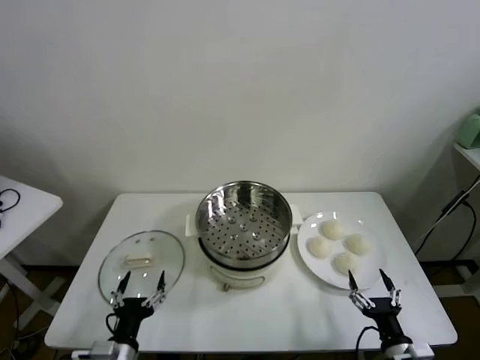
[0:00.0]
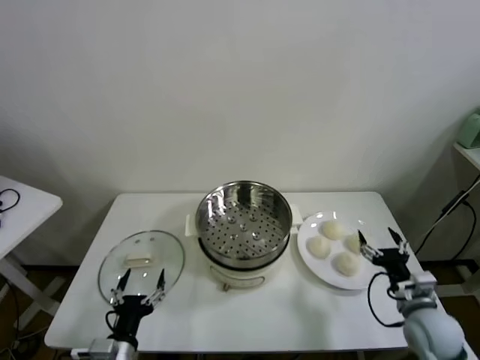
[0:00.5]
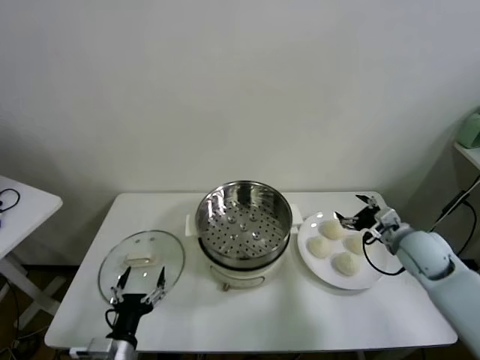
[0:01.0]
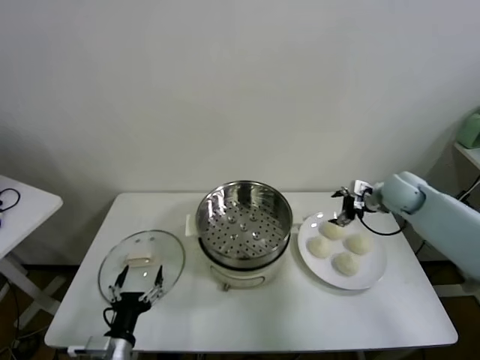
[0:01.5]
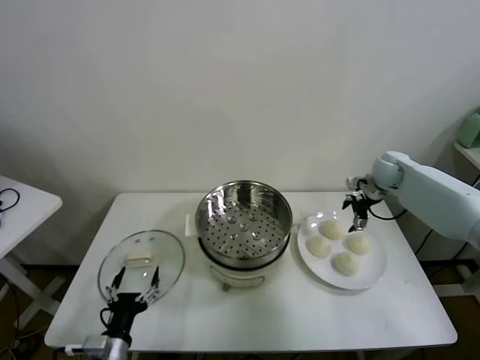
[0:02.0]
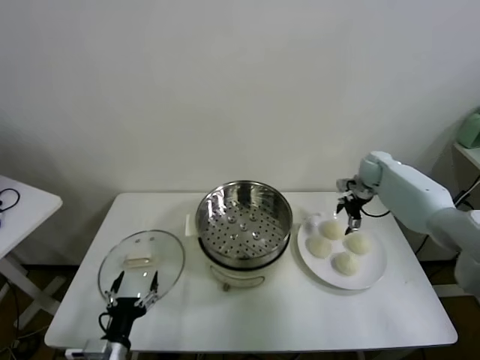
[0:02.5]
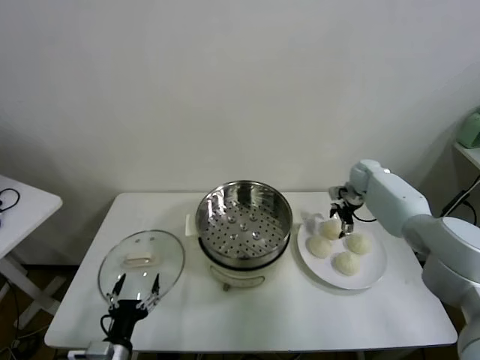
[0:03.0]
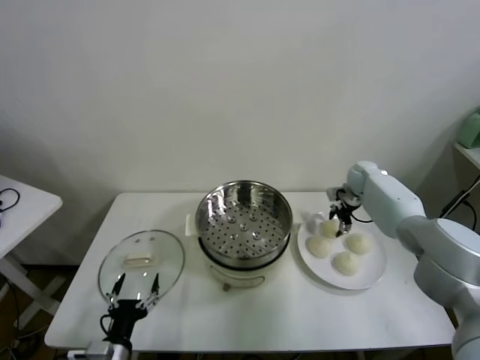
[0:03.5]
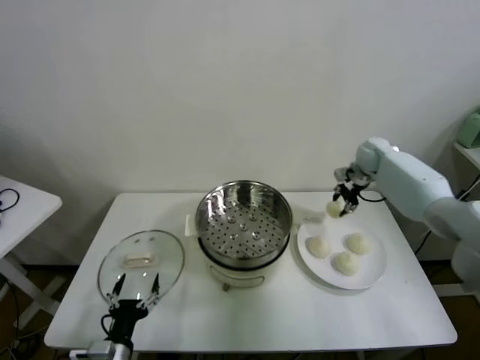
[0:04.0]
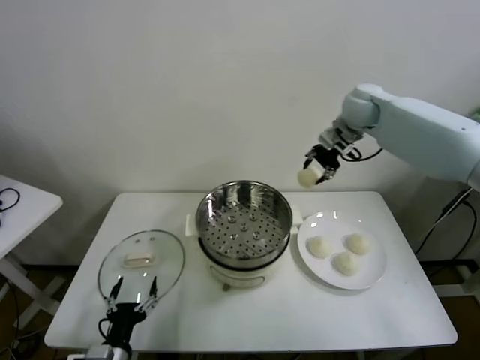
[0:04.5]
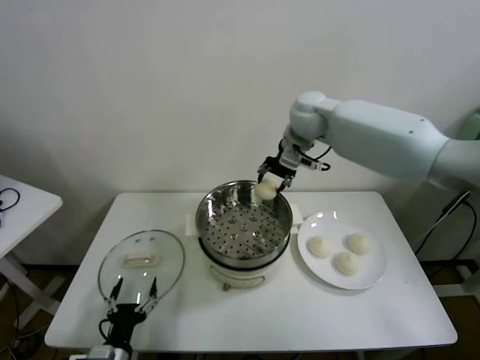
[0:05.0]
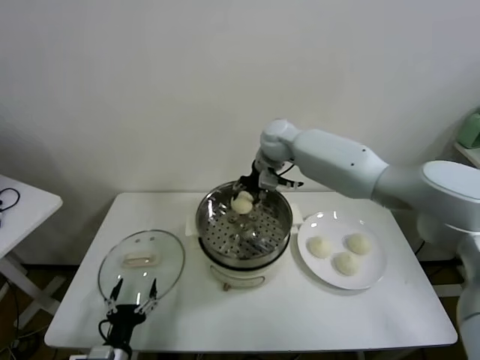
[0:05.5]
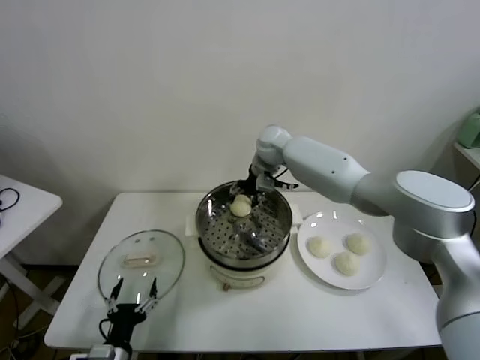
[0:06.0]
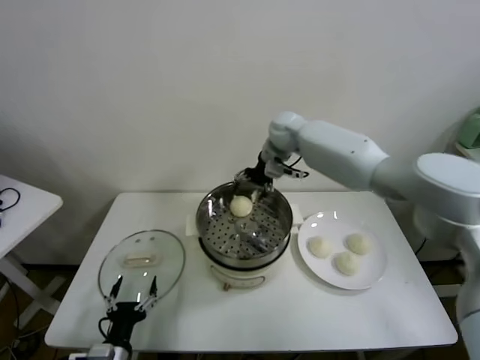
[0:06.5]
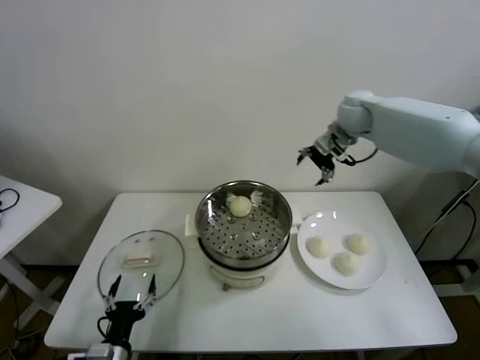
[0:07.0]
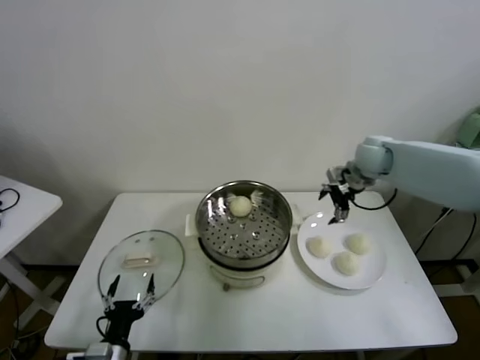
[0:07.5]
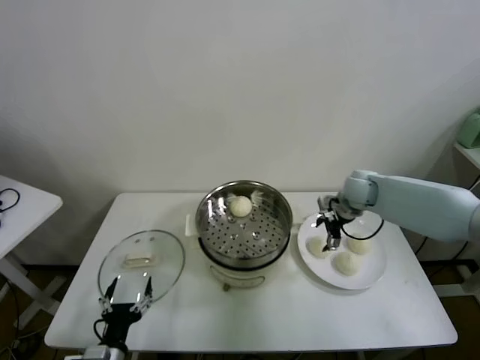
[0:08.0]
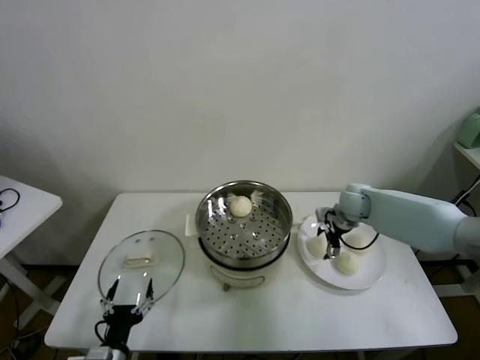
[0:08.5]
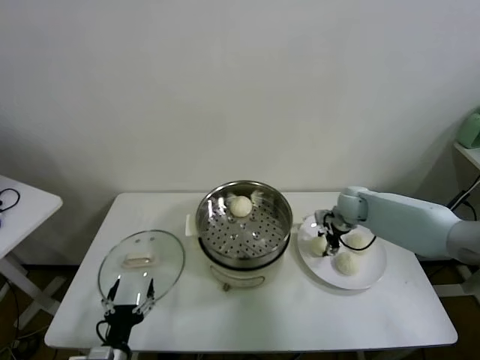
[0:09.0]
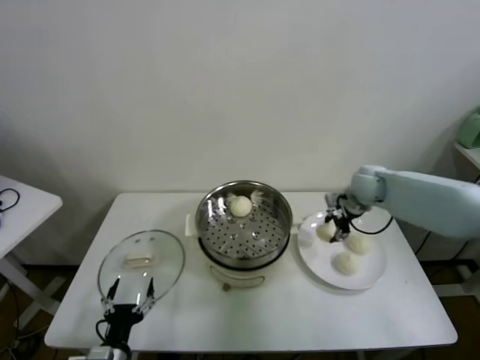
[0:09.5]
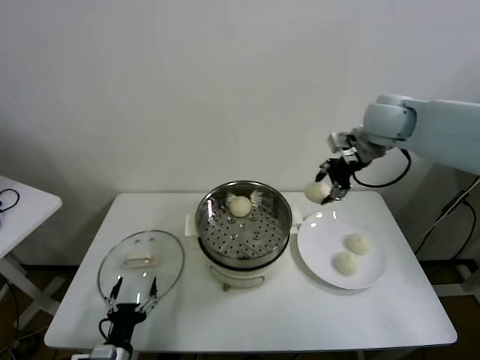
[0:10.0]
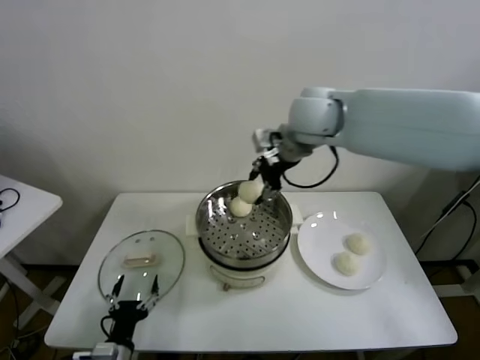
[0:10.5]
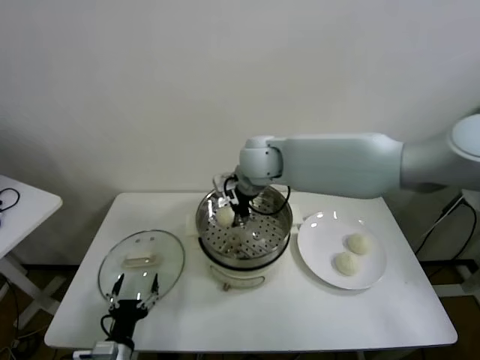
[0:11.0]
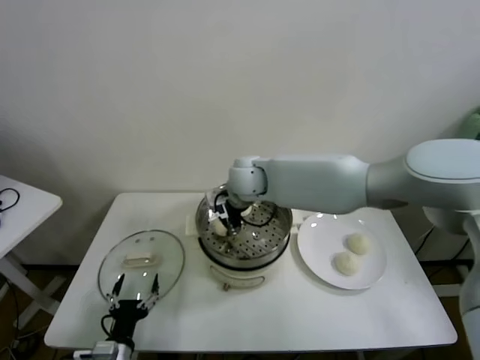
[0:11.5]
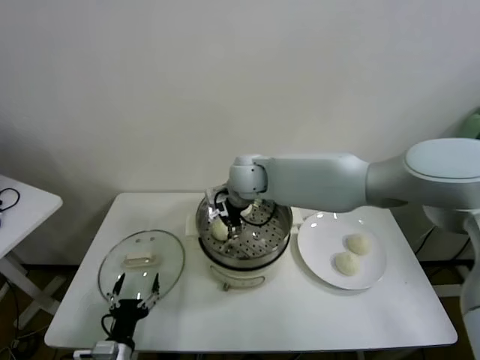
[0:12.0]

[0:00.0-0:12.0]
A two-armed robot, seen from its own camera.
Task of the whole recording: take steamed baozi put them in steamer.
Step, 0:00.0 to 0:03.5: Grasp the baozi in the plate with right gripper.
Step, 0:04.0 to 0:06.0: Place the baozi on the steamer with right gripper.
Step, 0:06.5 to 0:09.0: Grasp the baozi in the plate with right gripper.
Step, 0:09.5 to 0:11.5: Place the baozi on the steamer with right gripper.
0:02.0 to 0:04.0: The right gripper shifts by about 5 cm, and closes.
0:04.0 to 0:06.0: The right gripper shifts some 25 cm to the left, and opens up.
0:06.0 to 0:08.0: The right gripper travels to the right by some 20 cm.
0:08.0 to 0:10.0: The right gripper goes roughly 25 cm upward, and closes its fingers.
0:10.0 to 0:12.0: The right gripper heads to the left and downward, covering about 30 cm, and opens its fingers.

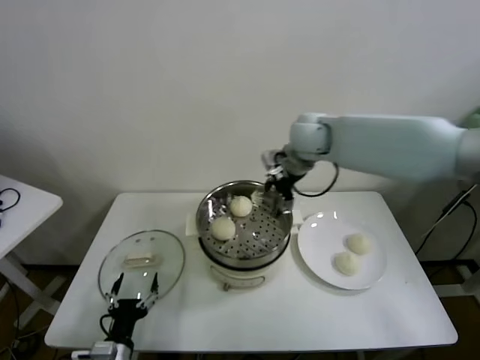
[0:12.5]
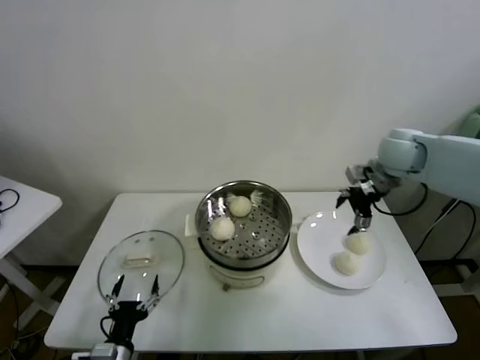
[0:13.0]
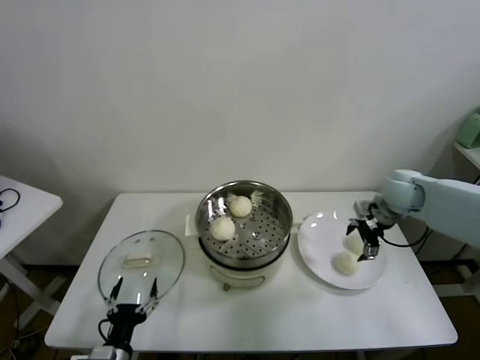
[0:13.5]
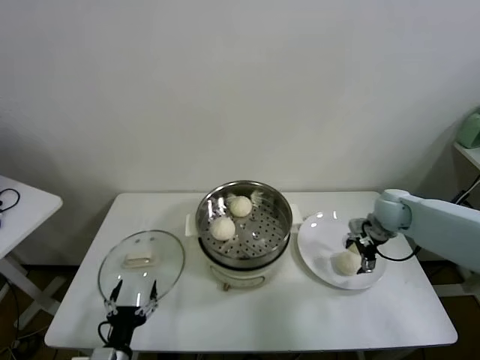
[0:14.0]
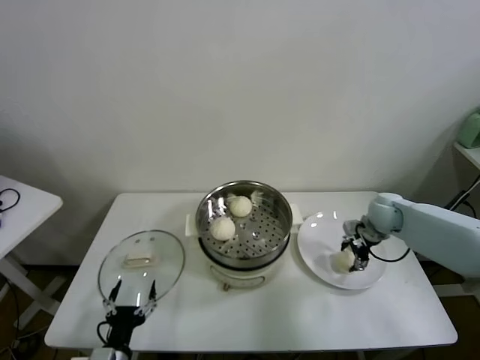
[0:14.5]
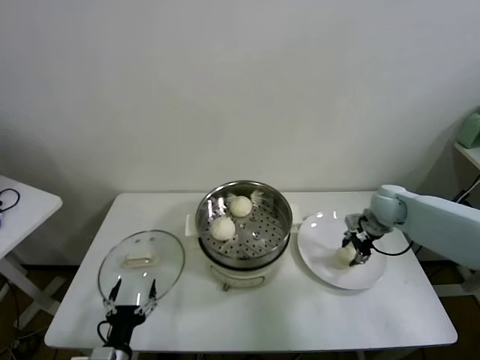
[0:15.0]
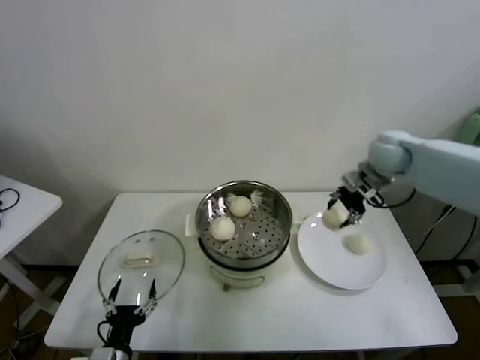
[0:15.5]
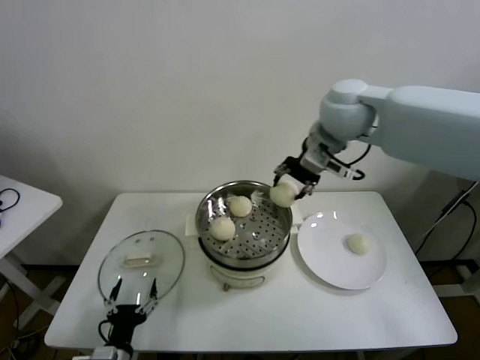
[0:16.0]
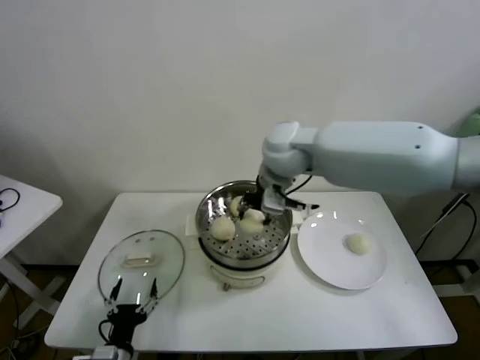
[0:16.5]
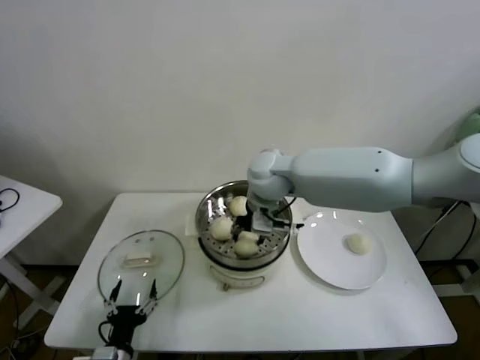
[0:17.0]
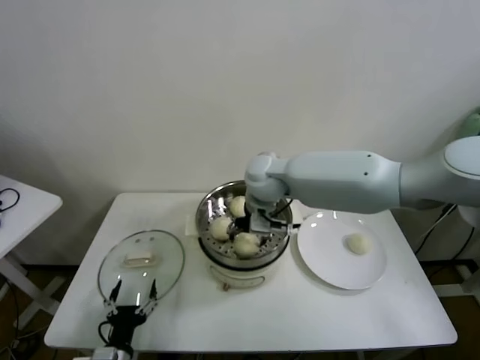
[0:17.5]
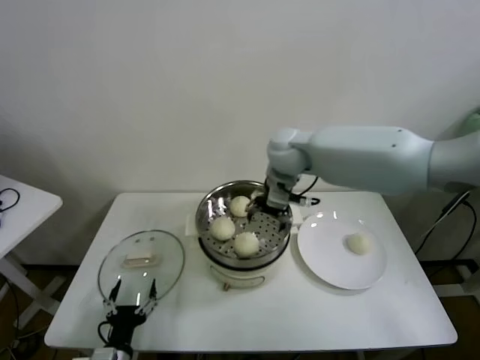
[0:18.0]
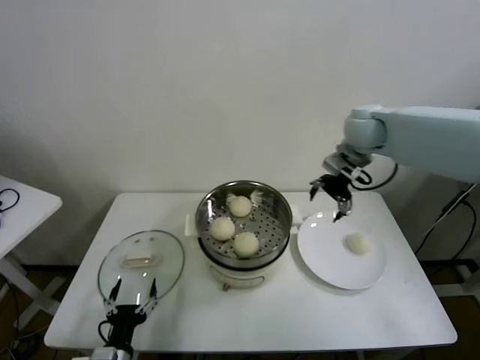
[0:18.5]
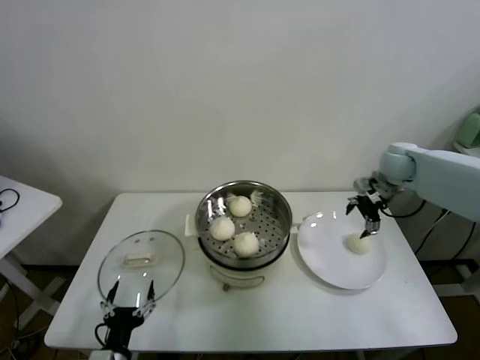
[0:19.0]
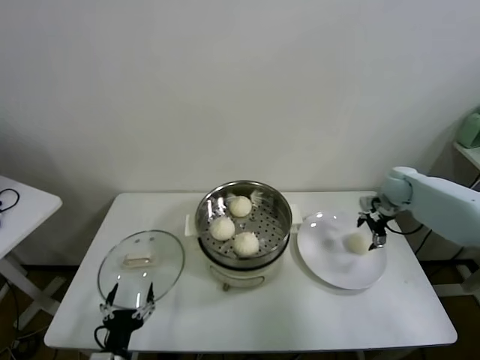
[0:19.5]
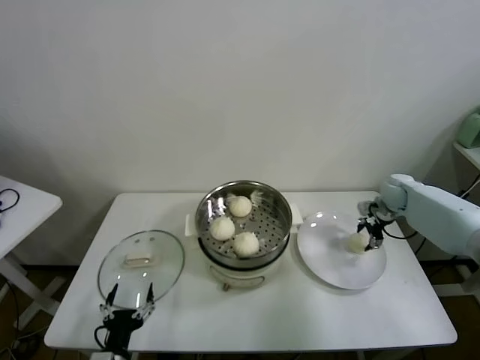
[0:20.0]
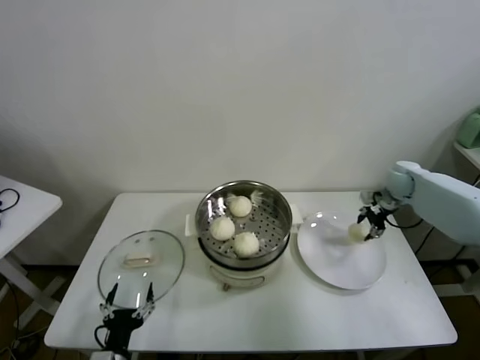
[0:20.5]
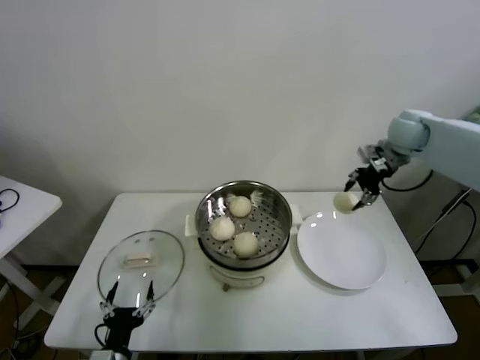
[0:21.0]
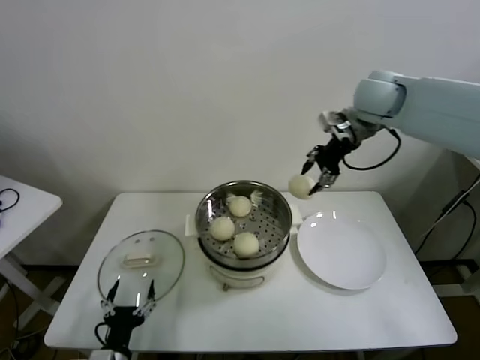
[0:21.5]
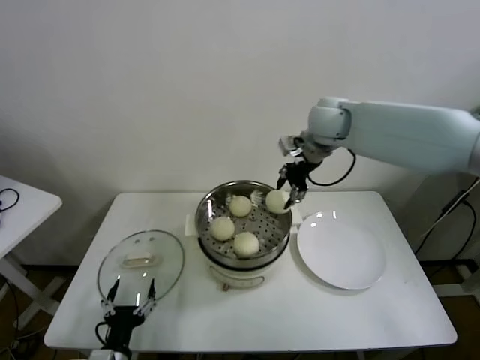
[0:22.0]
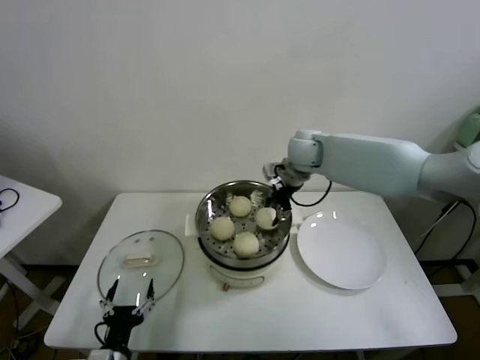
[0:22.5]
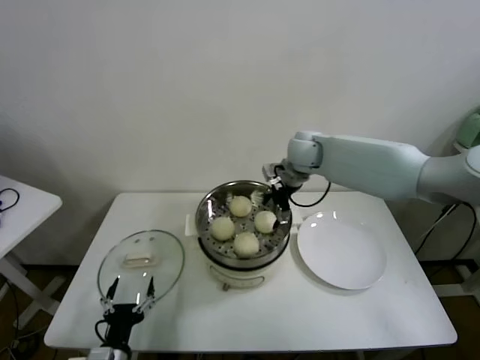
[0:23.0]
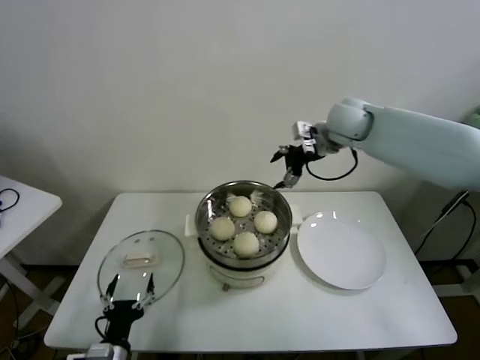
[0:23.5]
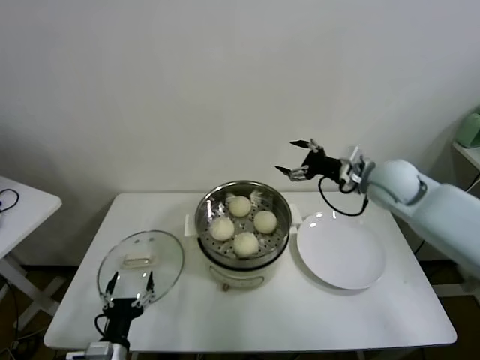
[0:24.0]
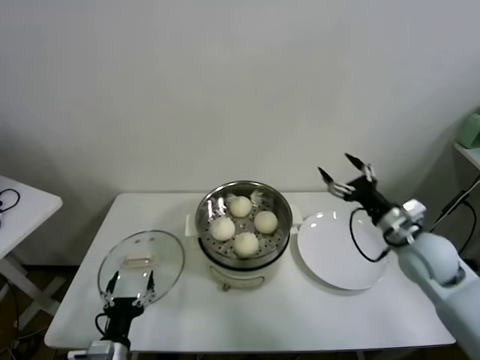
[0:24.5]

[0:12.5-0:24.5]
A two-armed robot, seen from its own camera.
Task of the whole recording: take steamed baozi put them in steamer.
Step, 0:12.5 to 0:14.5: Grasp the baozi in the plate with right gripper.
Step, 0:15.0 to 0:17.5: Place the baozi on the steamer with right gripper.
Step, 0:18.0 to 0:20.0: Grasp the baozi in the plate with right gripper.
Step, 0:20.5 to 0:22.5: Place the baozi on the steamer with right gripper.
0:12.5 to 0:14.5: The right gripper heads downward and to the right, covering about 30 cm, and closes.
0:14.5 to 0:16.5: The right gripper shifts roughly 35 cm to the left and upward.
0:16.5 to 0:18.5: The right gripper is displaced to the right by about 20 cm, and opens up.
0:18.5 to 0:20.5: The right gripper travels downward and to the right by some 25 cm, and closes.
0:20.5 to 0:22.5: The right gripper shifts some 25 cm to the left.
0:22.5 to 0:24.5: The right gripper heads backward, to the right and downward, covering about 30 cm, and opens.

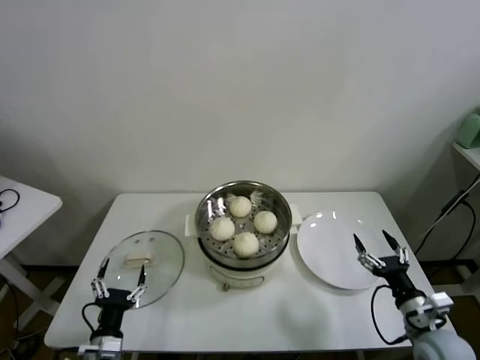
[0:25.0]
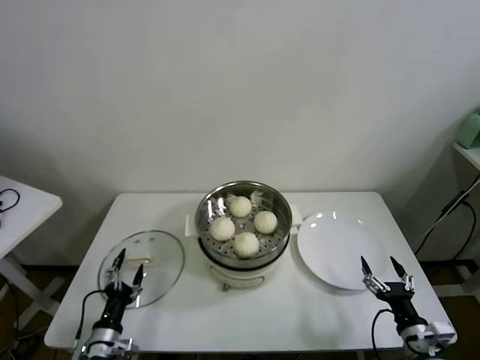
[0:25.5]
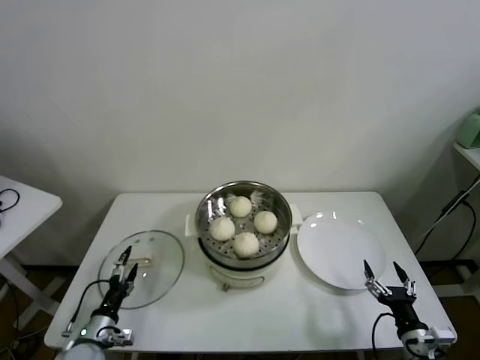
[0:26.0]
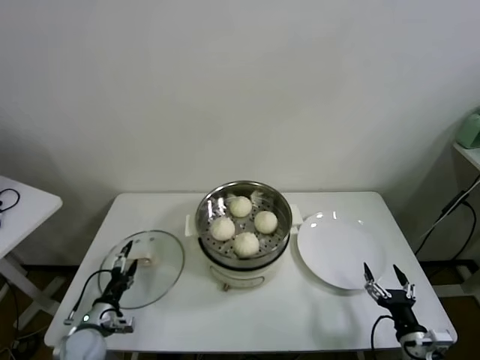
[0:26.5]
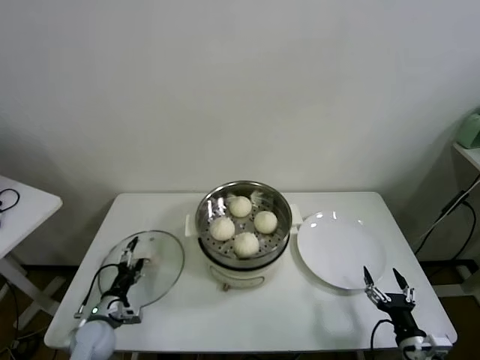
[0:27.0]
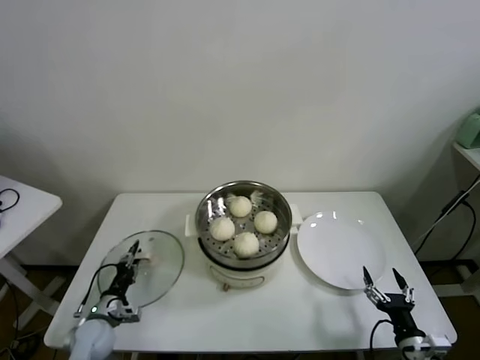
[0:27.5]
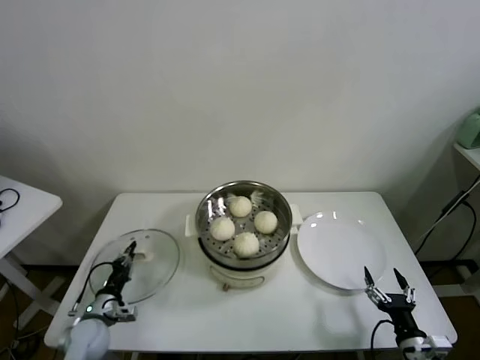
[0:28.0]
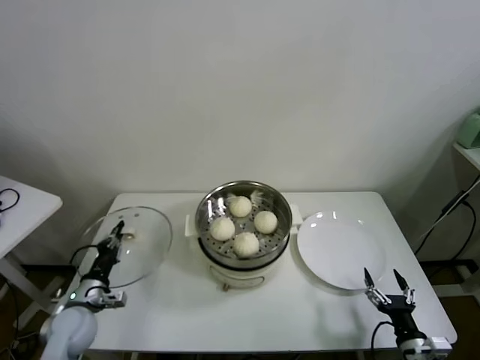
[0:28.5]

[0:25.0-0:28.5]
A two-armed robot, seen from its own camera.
Task of the whole recording: take steamed baozi put them in steamer.
Step, 0:25.0 to 0:27.5: Grasp the pot lid with left gripper.
0:25.0 to 0:27.0: The left gripper moves forward, to the left and downward, about 15 cm. The right gripper shifts some 10 cm downward and backward.
0:27.0 to 0:28.5: The left gripper is displaced upward by approximately 5 cm, and closes up.
